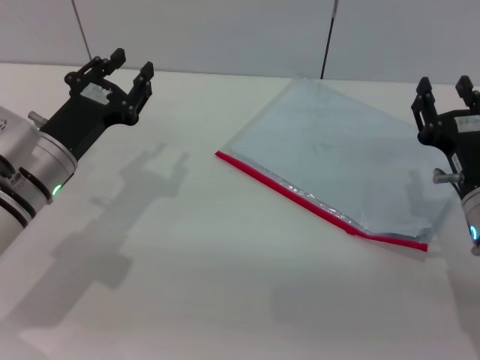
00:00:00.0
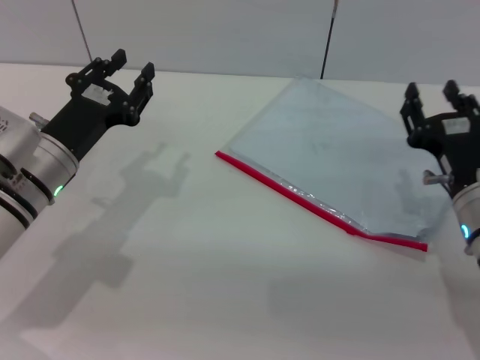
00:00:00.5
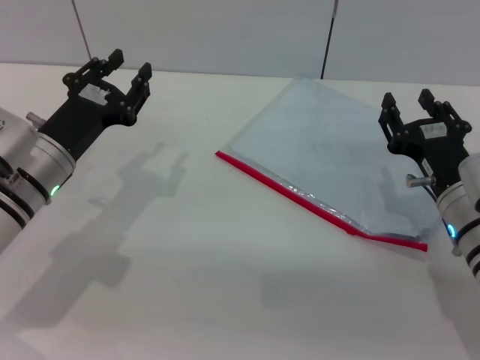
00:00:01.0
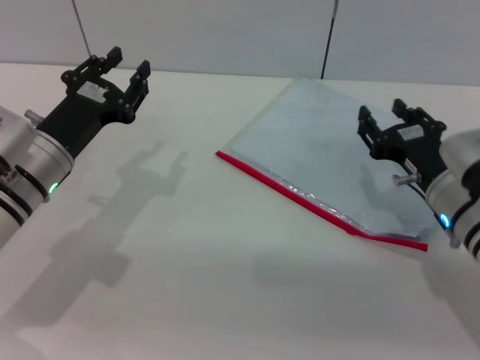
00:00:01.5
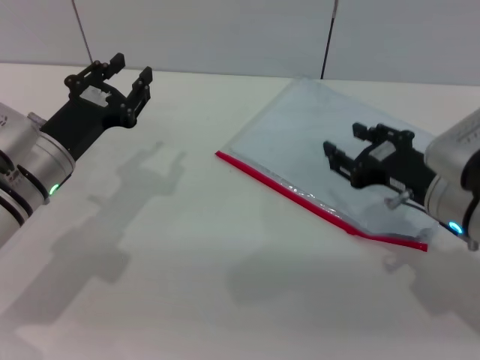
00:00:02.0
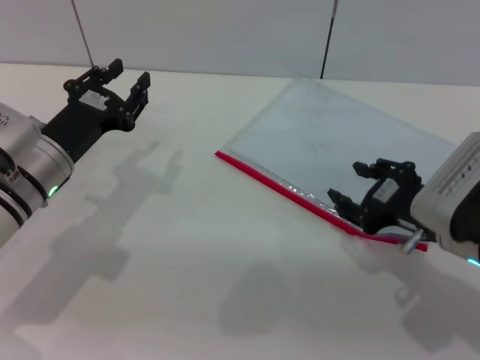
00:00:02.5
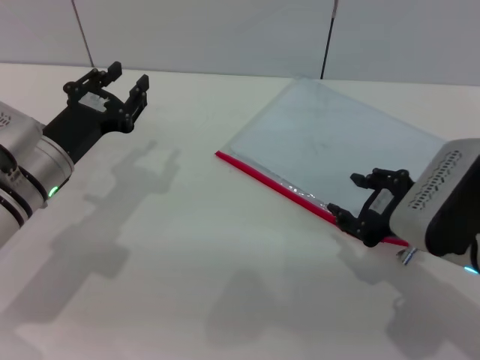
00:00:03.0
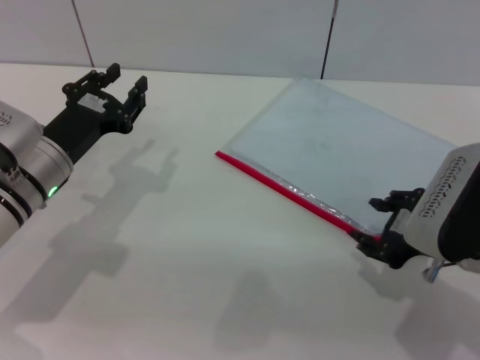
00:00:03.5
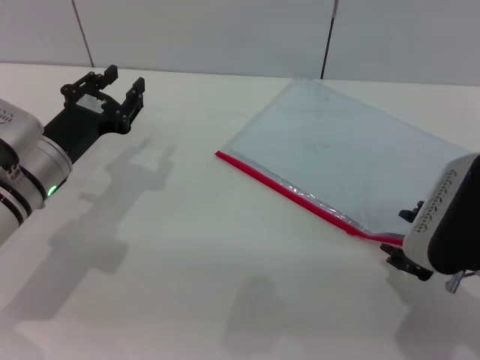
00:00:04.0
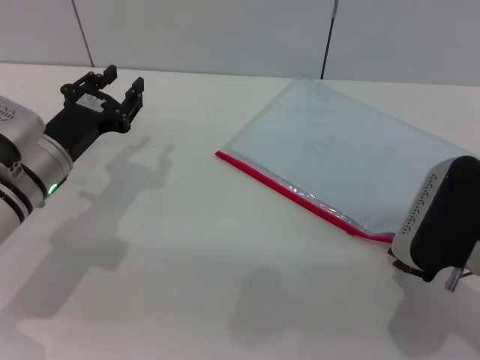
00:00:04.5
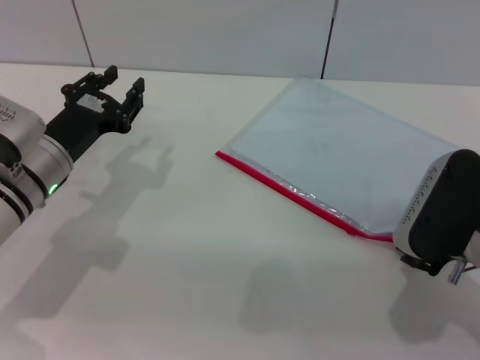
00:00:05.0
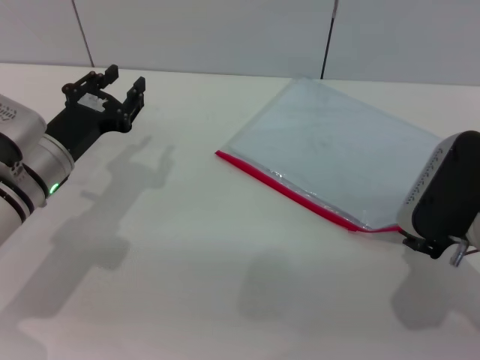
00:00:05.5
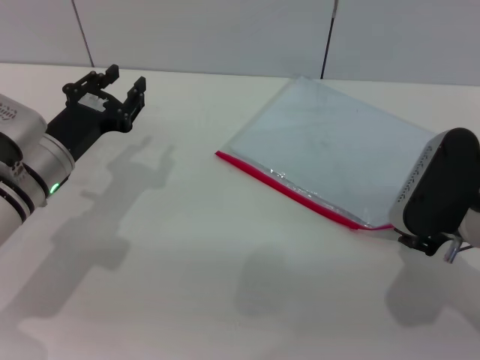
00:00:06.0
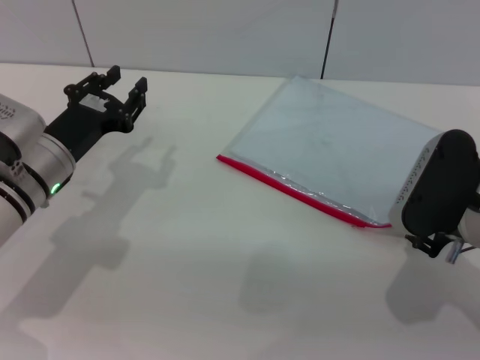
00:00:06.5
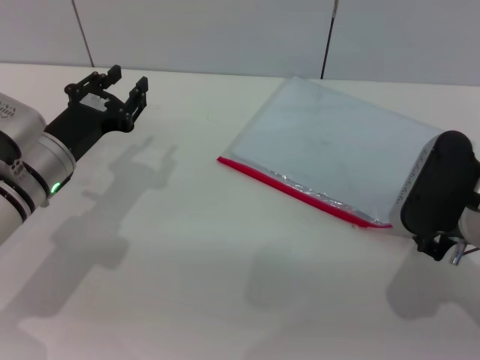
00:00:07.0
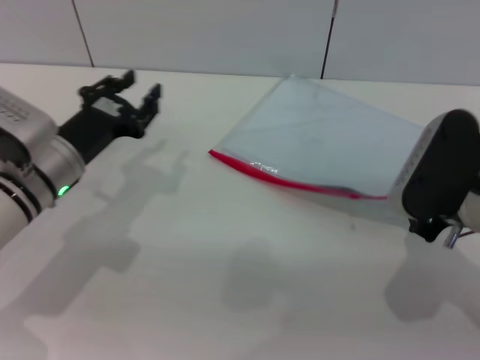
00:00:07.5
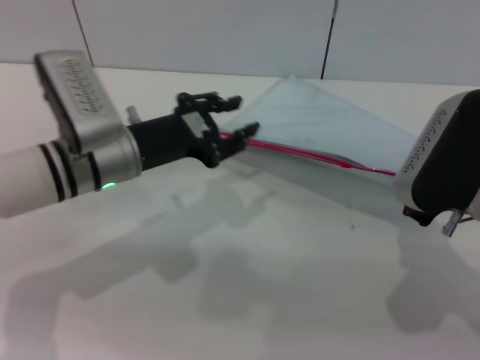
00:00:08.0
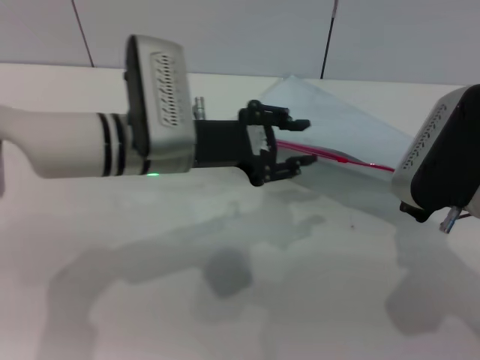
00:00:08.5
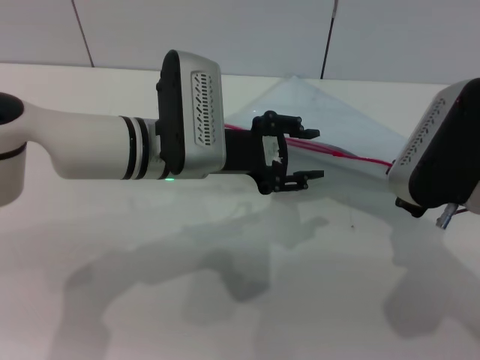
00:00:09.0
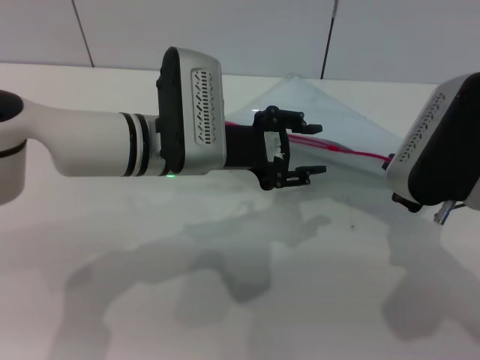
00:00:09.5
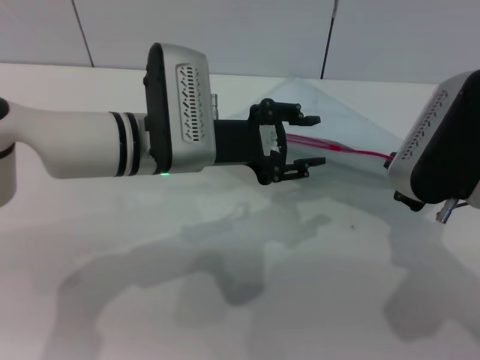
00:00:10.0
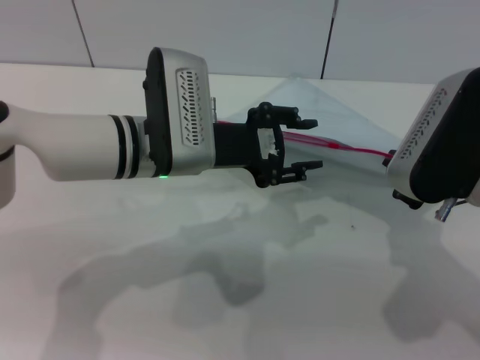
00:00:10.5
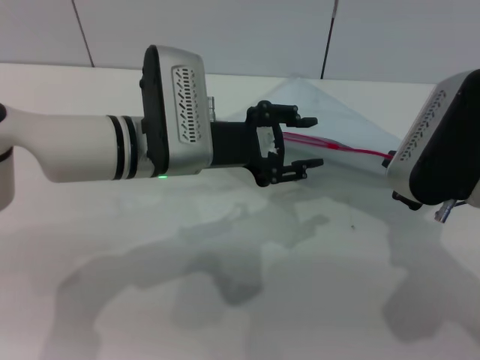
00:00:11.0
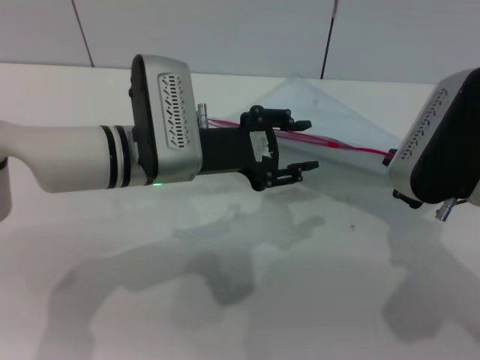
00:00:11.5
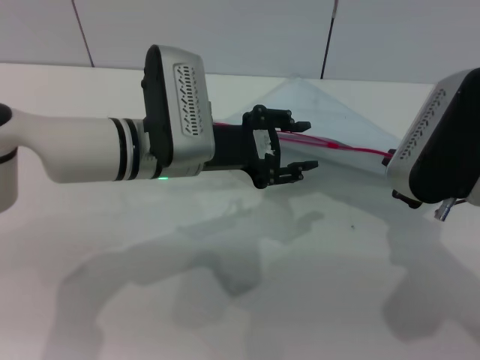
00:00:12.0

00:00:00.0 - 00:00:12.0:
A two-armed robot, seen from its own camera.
Step, 00:00:00.0 - 00:00:08.5: Pick up the transparent plastic bag with the right gripper.
00:00:02.0 - 00:00:04.0: The right gripper shifts by approximately 5 cm.
00:00:04.0 - 00:00:06.0: There are only small adjustments of the grippers.
00:00:06.0 - 00:00:08.0: The right gripper closes up. The left gripper moves to the right, about 5 cm.
00:00:08.0 - 00:00:10.0: The left gripper heads to the right, covering roughly 5 cm.
00:00:10.0 - 00:00:12.0: The grippers make only small movements.

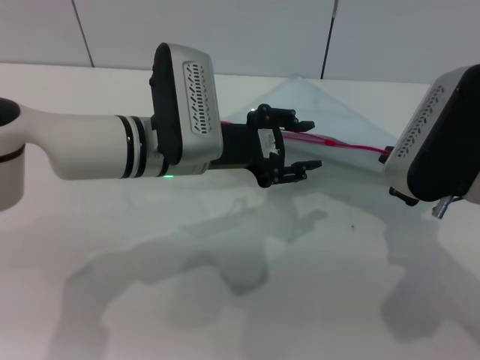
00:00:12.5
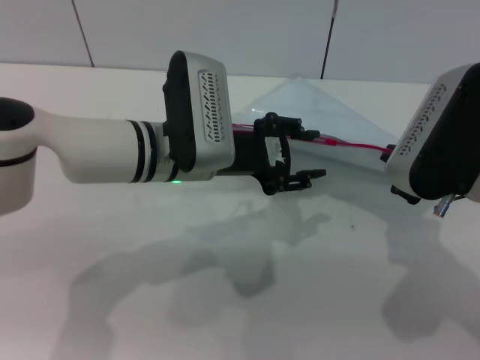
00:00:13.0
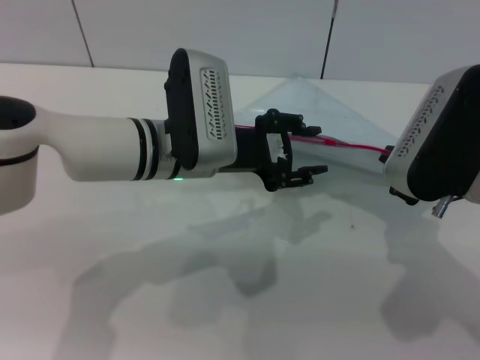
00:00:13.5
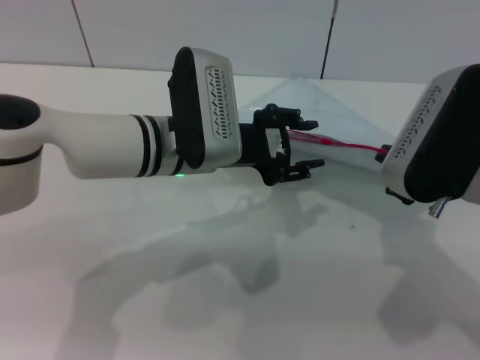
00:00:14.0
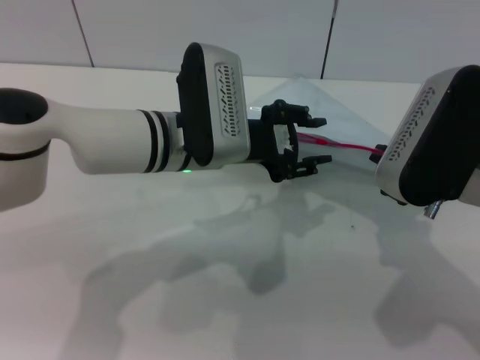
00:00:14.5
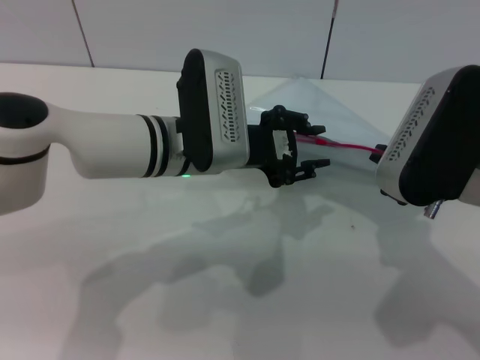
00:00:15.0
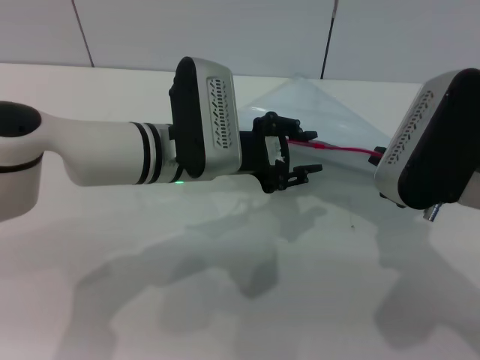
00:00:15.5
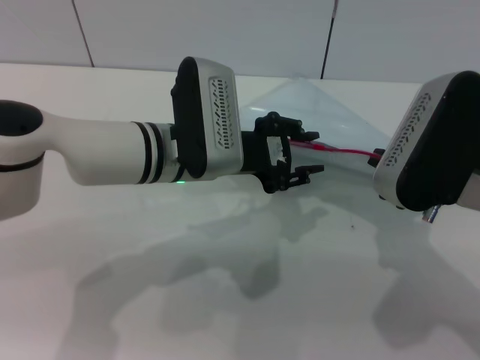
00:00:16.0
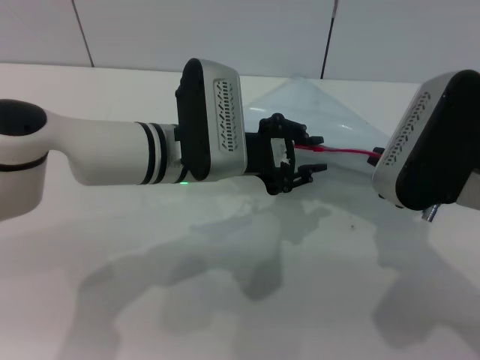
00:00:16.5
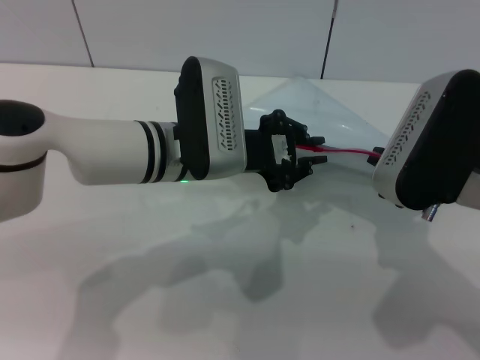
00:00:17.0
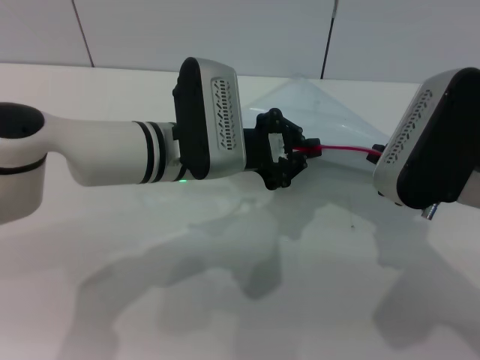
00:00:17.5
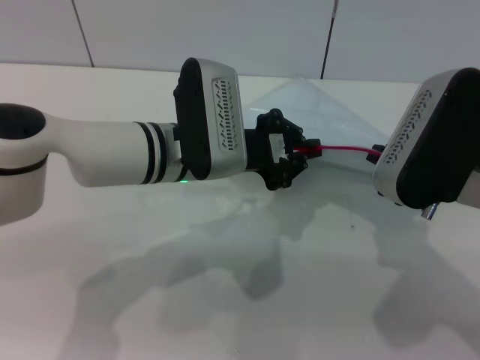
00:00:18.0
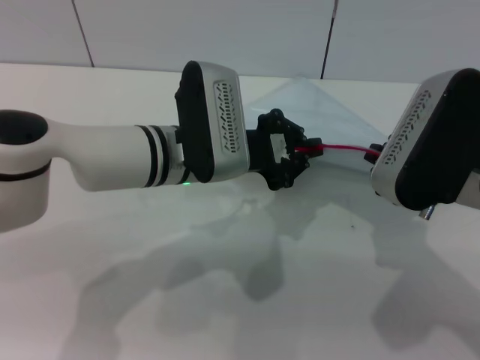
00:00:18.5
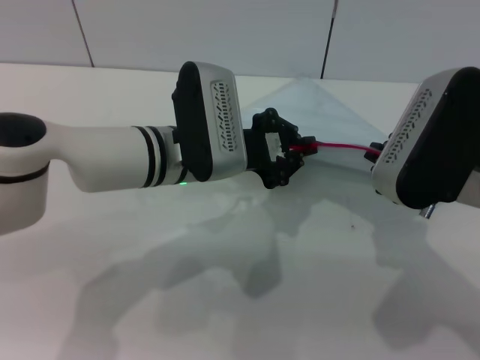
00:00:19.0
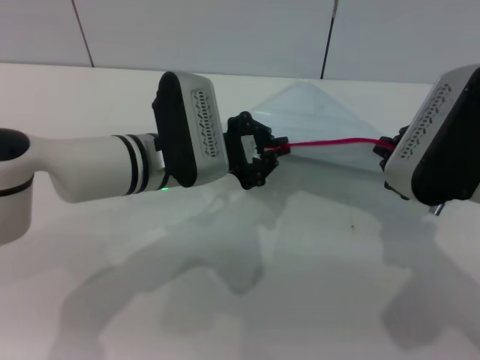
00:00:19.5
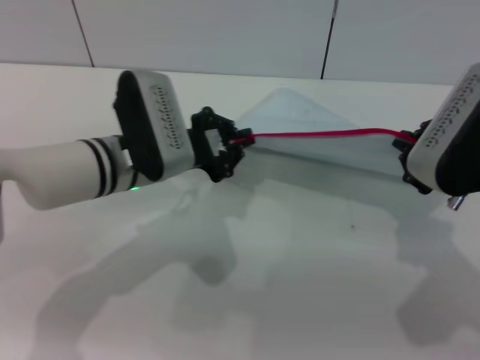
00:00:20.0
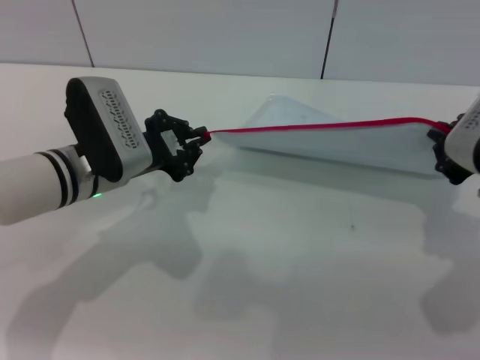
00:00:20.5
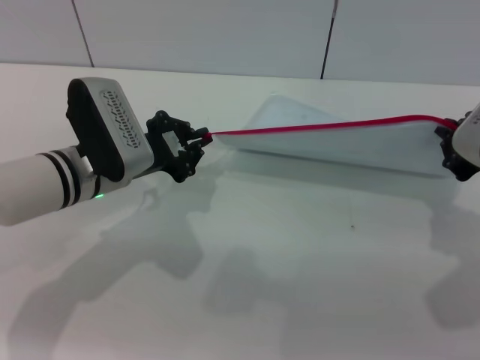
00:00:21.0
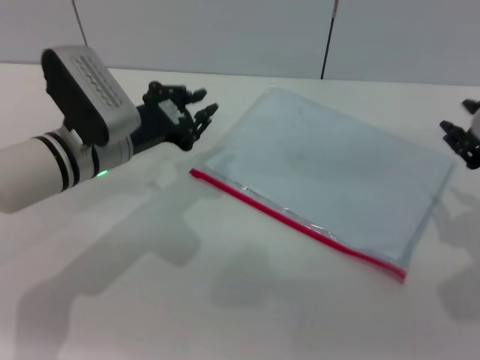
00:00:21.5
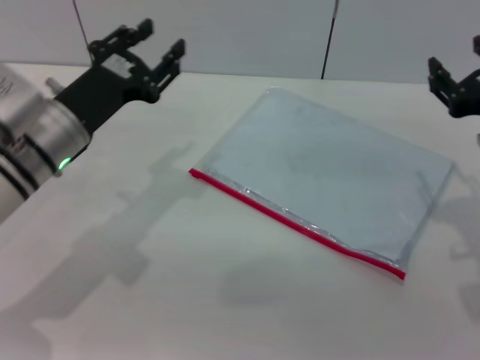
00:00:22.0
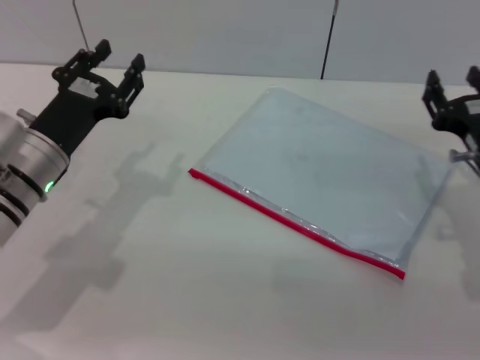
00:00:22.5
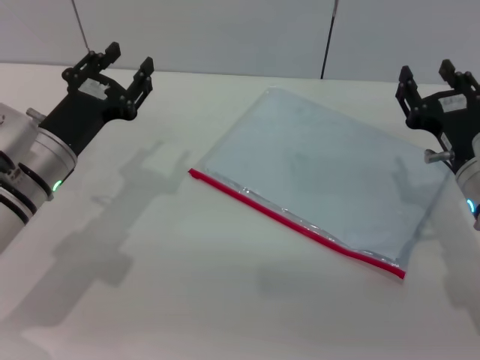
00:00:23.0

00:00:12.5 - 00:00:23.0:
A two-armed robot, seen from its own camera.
Step, 00:00:12.5 - 00:00:21.0: Pulling up the zipper on the transparent plastic bag with the left gripper to close it.
00:00:12.5 - 00:00:14.5: There are only small adjustments of the grippers.
00:00:14.5 - 00:00:16.5: The two grippers keep their place.
00:00:16.5 - 00:00:19.0: The left gripper closes up.
00:00:19.0 - 00:00:21.0: The left gripper is displaced to the left by about 10 cm, while the right gripper shifts approximately 5 cm to the right.
00:00:21.0 - 00:00:23.0: The right gripper heads downward, covering roughly 10 cm, and opens. The left gripper opens.
